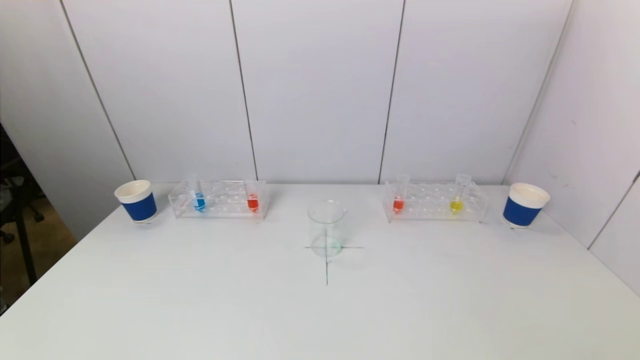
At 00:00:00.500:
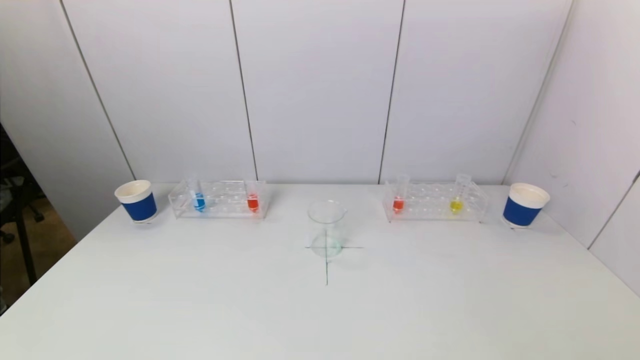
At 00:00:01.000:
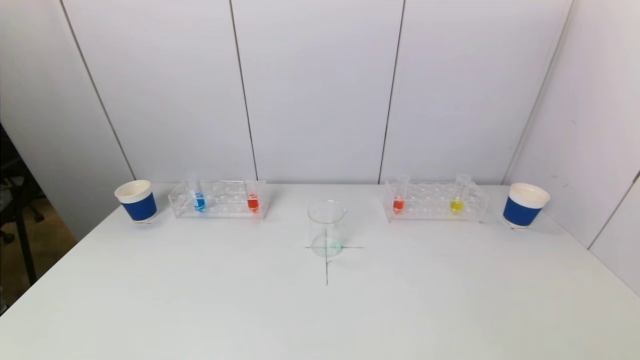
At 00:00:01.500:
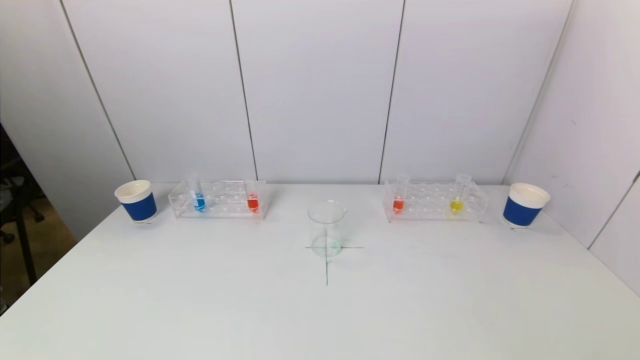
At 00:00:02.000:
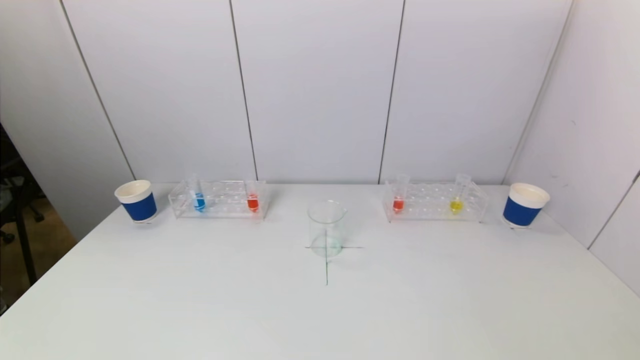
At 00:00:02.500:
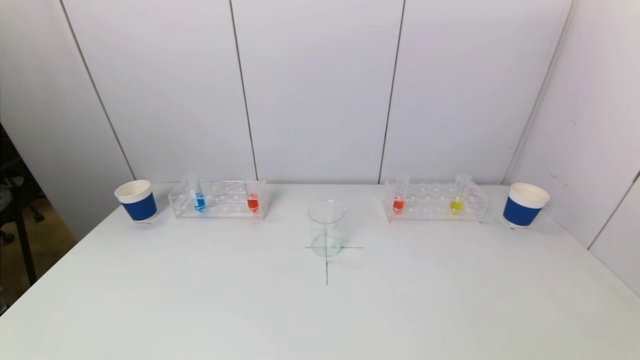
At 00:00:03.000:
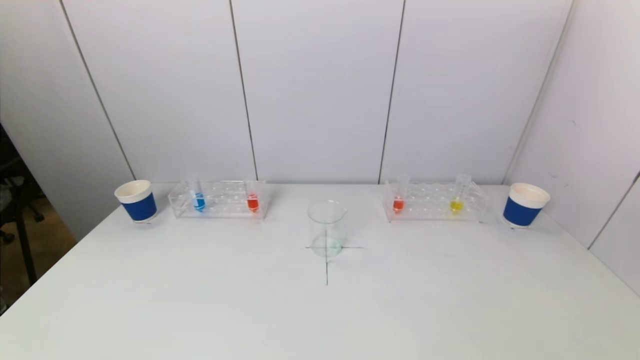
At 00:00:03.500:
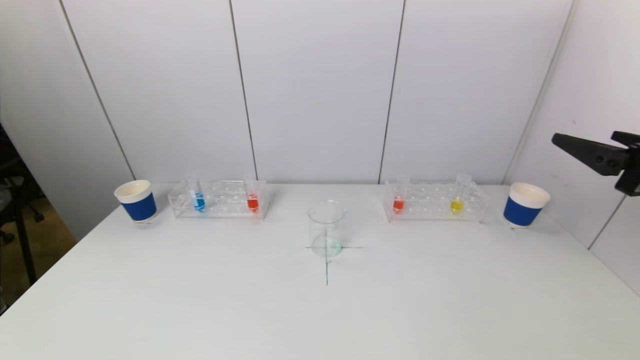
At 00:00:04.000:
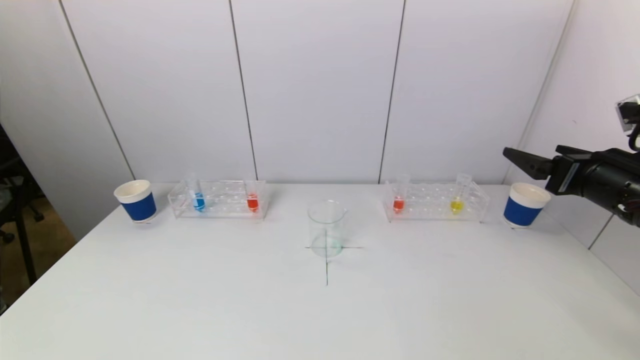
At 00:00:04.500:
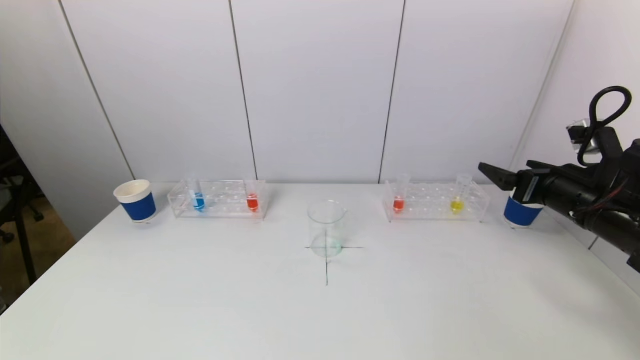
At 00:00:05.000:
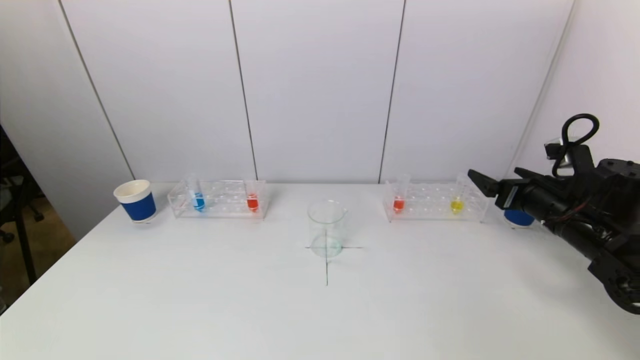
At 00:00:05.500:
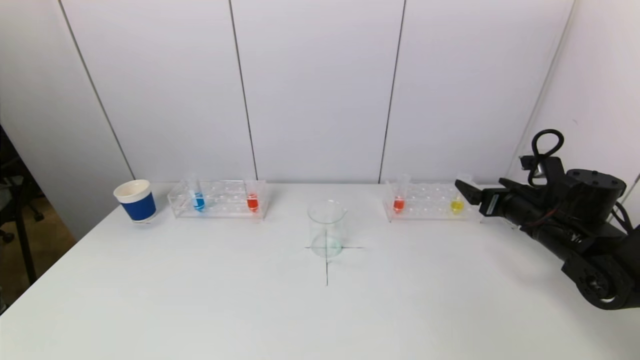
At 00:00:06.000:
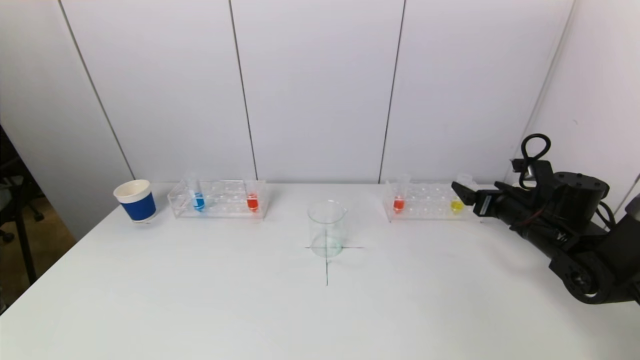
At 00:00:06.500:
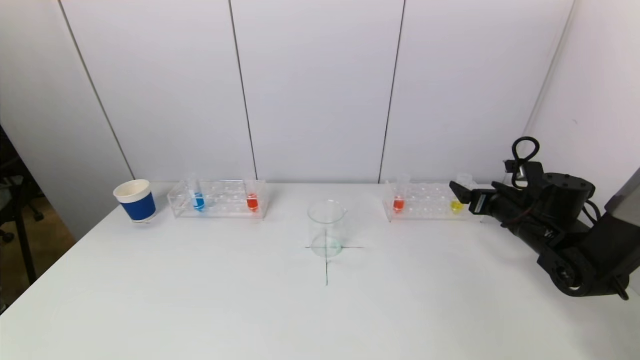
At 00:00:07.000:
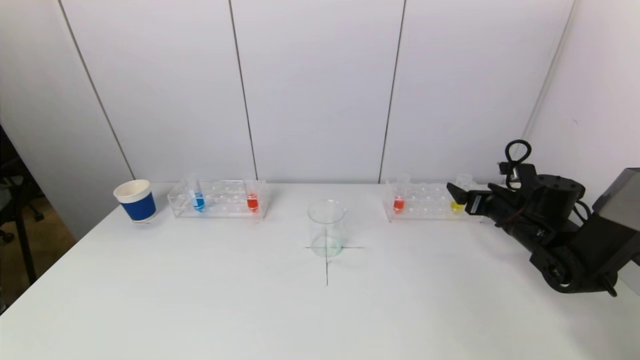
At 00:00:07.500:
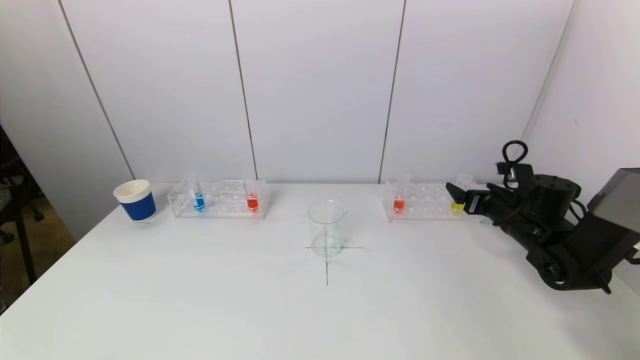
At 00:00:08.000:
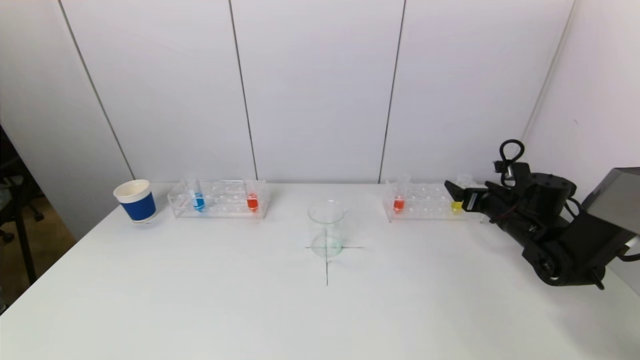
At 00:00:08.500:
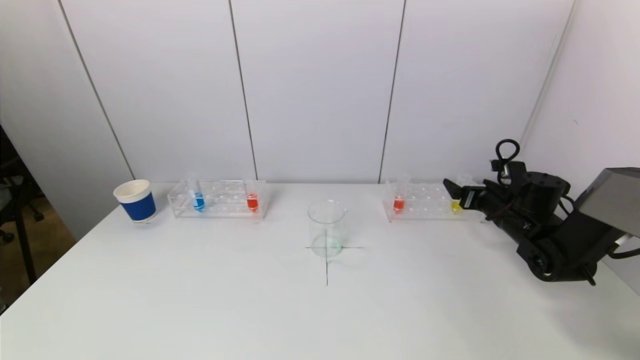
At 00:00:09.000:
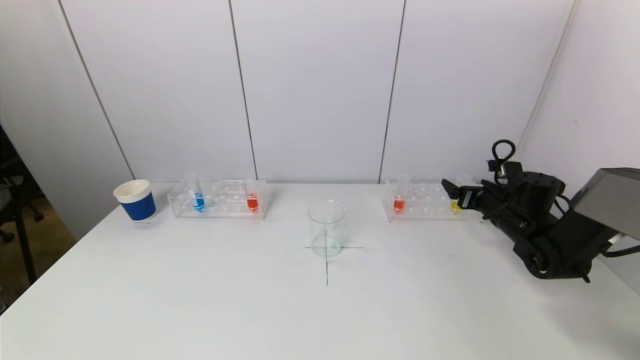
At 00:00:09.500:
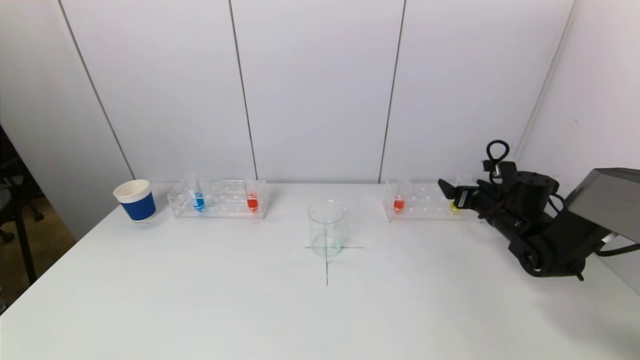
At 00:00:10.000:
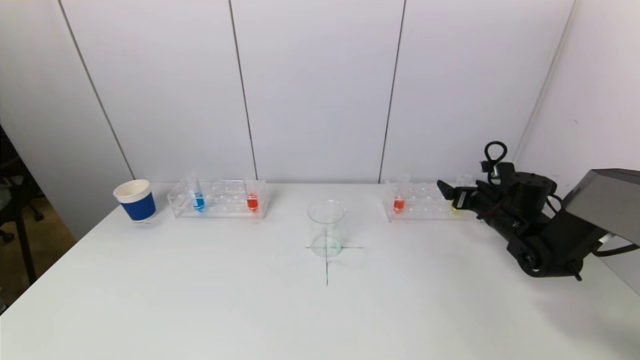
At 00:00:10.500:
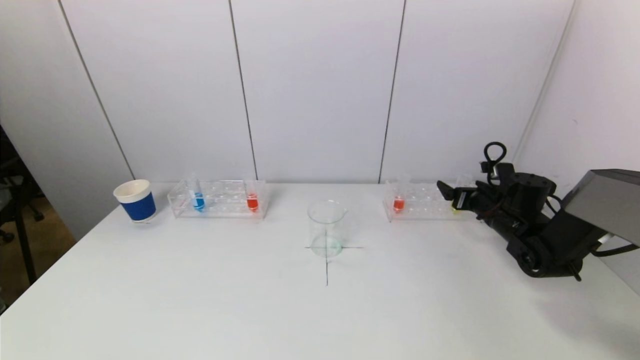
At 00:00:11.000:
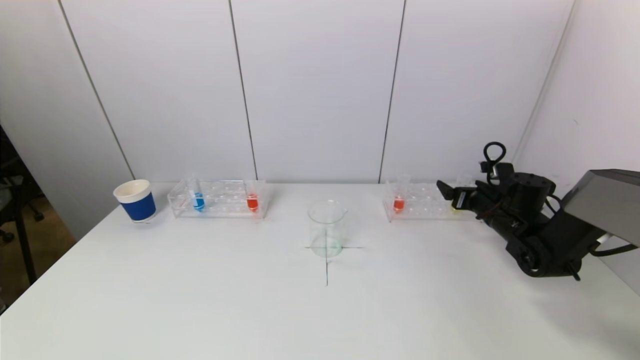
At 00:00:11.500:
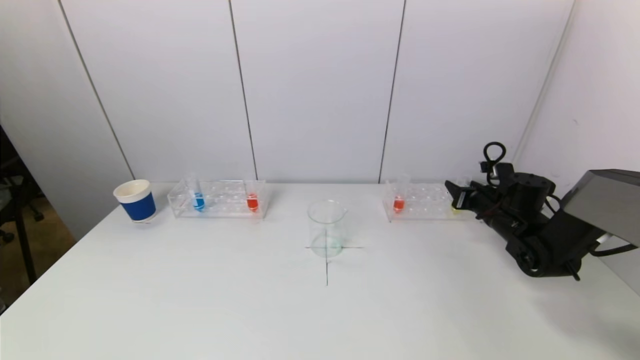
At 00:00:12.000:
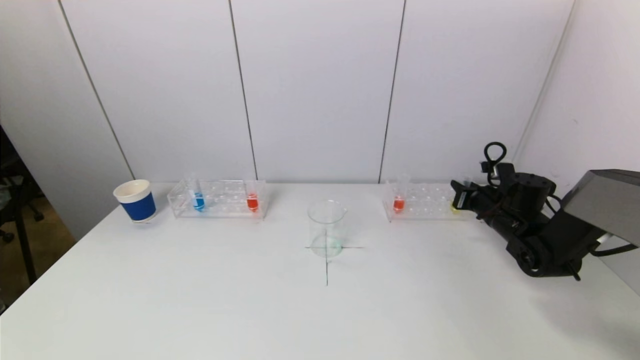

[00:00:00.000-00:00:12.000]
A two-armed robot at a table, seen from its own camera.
Task of the whole recording: pick up a test tube with pigment on left test tube rack and a test tube with pigment on right test tube rack by grippers and pour them into the beaker.
Step, 00:00:00.000 to 00:00:11.500: Grasp the yellow reagent with the right gripper.
00:00:02.000 to 00:00:04.000: The right gripper is displaced forward by about 30 cm.
00:00:04.000 to 00:00:06.000: The right gripper is displaced downward and forward by about 15 cm.
00:00:06.000 to 00:00:08.000: The right gripper changes place by about 5 cm.
00:00:08.000 to 00:00:10.000: There are only small adjustments of the grippers.

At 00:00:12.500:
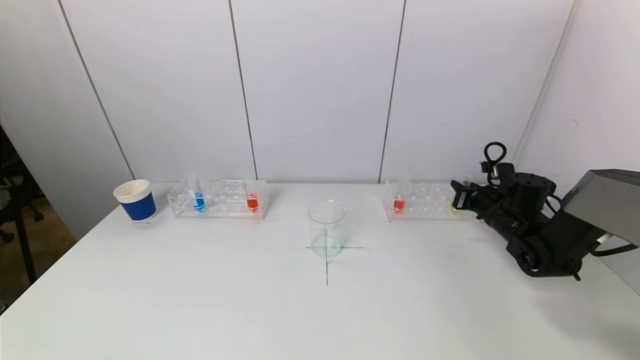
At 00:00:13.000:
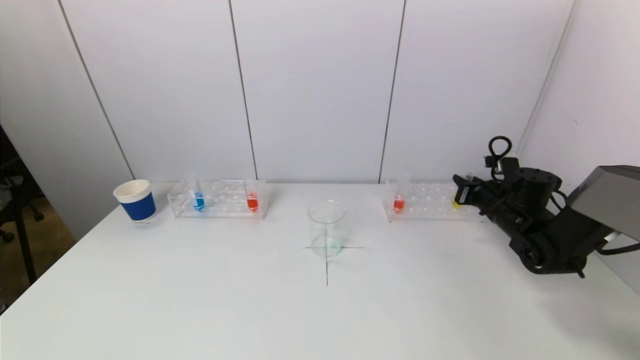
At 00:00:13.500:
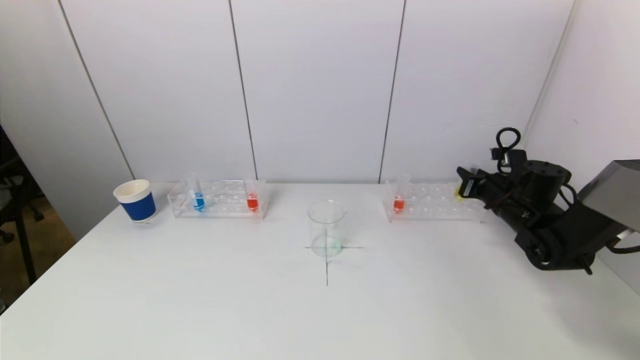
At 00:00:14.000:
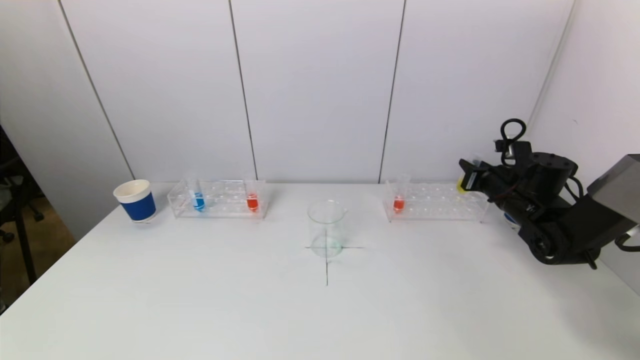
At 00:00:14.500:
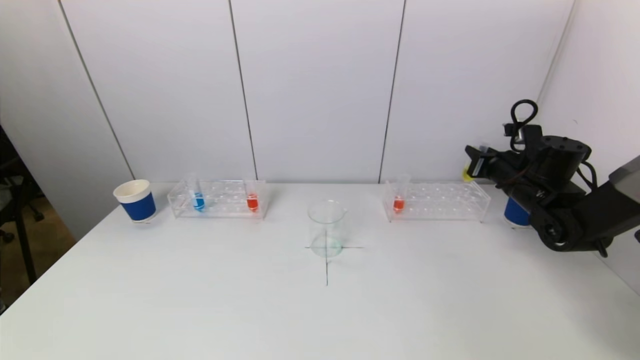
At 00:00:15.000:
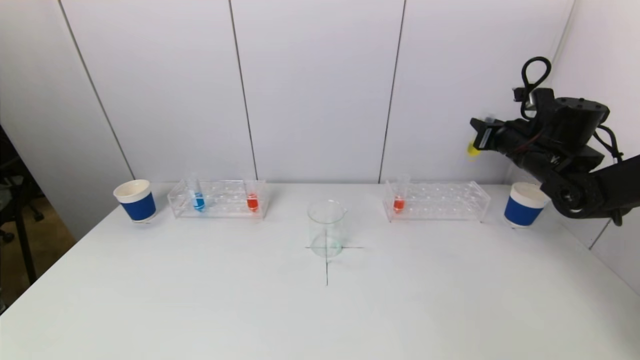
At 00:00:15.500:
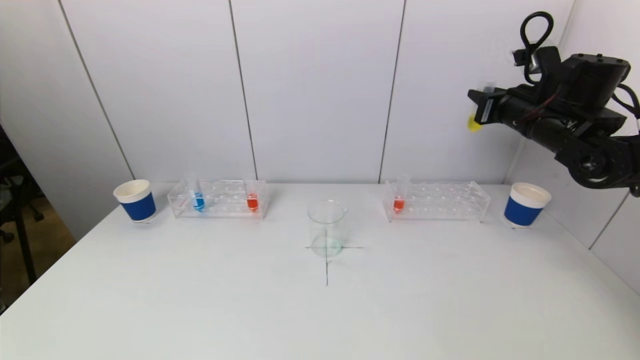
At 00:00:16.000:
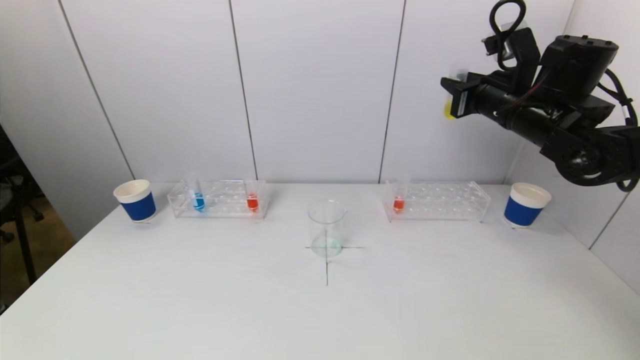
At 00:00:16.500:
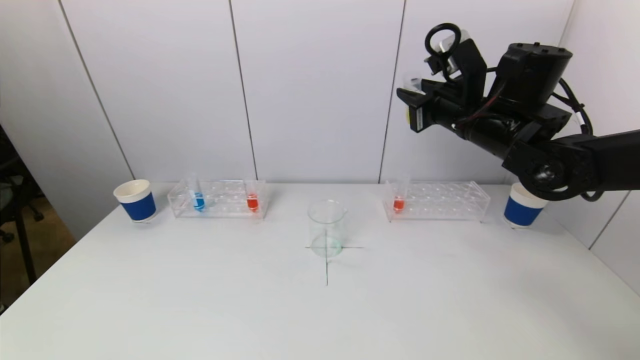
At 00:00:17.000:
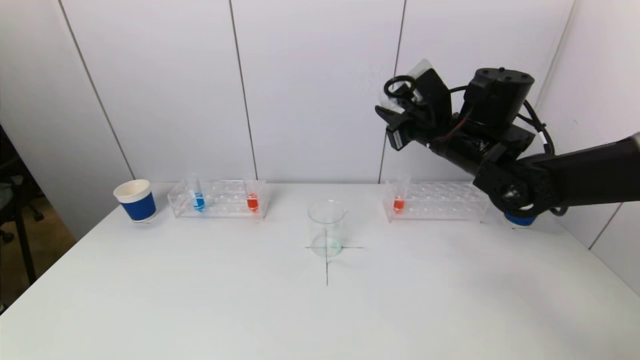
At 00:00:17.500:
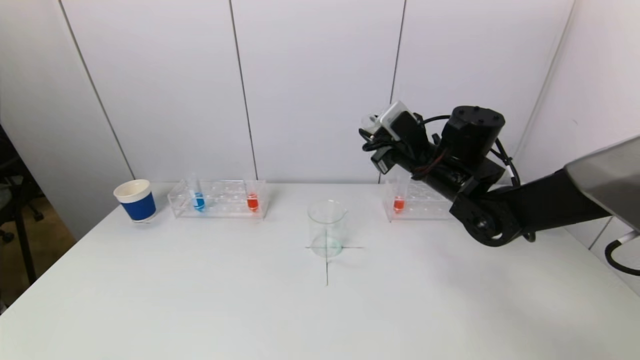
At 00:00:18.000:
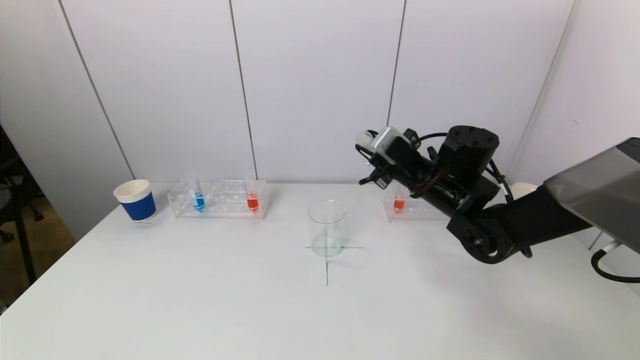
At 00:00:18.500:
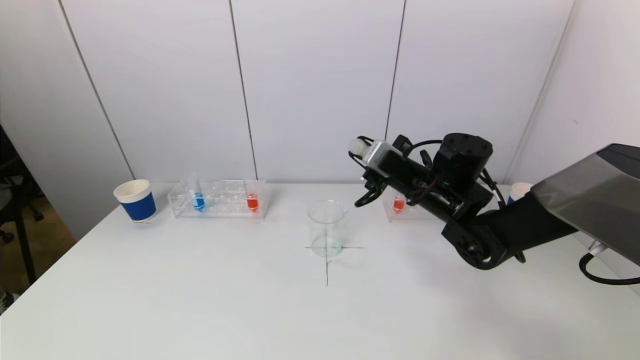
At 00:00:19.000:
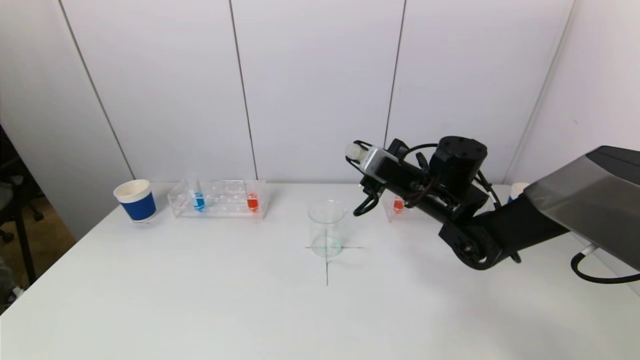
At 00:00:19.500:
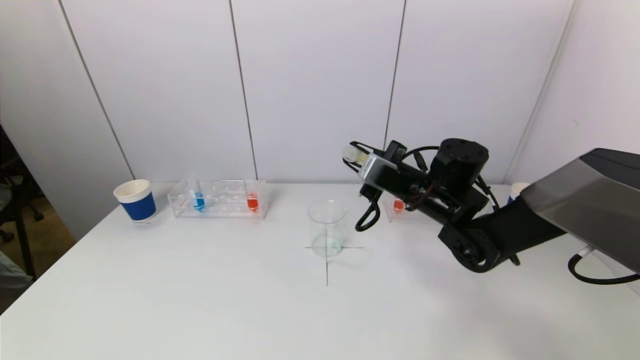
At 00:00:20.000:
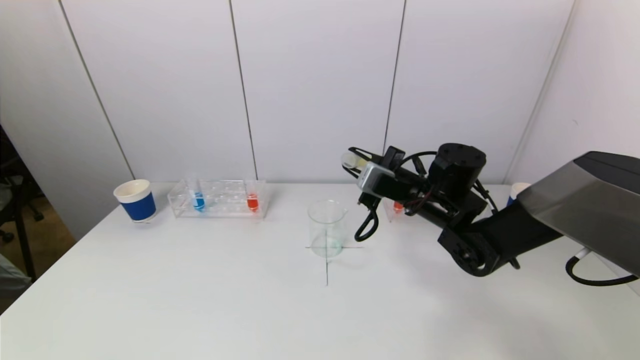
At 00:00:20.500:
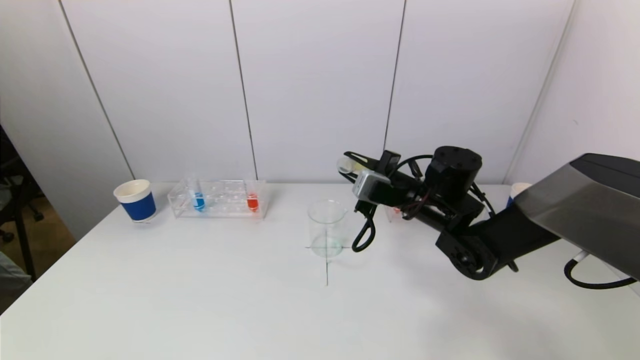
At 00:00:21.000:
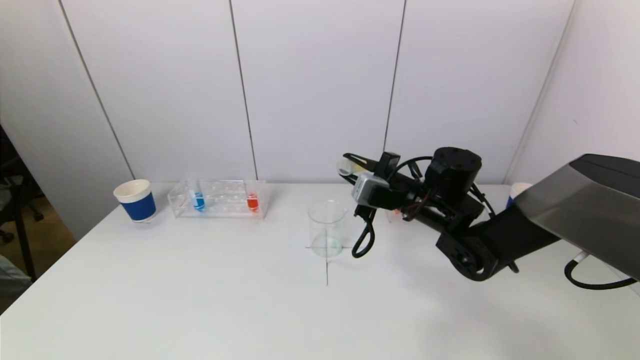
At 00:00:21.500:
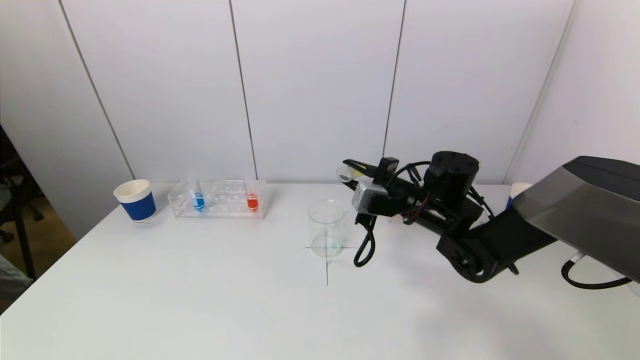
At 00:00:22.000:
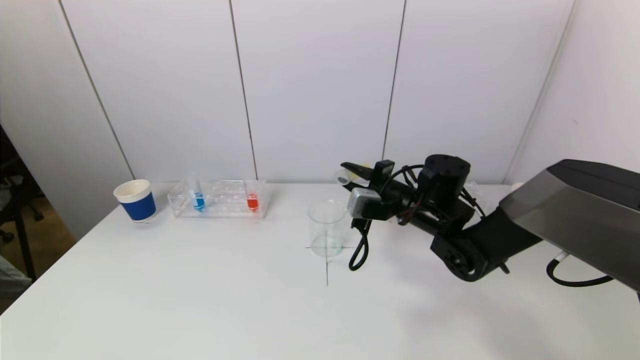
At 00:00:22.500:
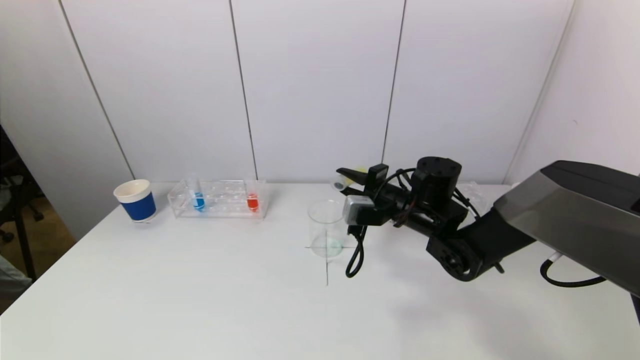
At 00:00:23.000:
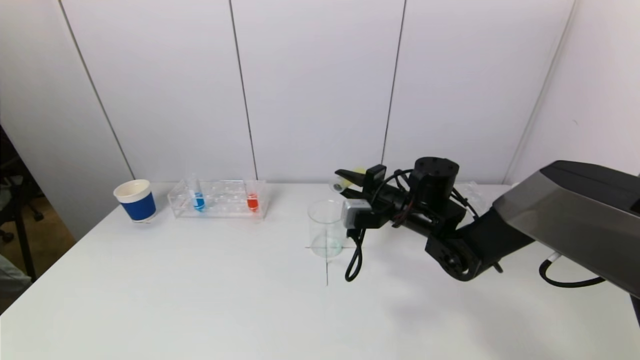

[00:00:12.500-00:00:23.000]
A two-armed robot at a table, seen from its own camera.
Task of the whole recording: pick up a test tube with pigment on left test tube rack and a test tube with pigment on right test tube rack by grippers and pour them into the beaker.
00:00:12.500 to 00:00:14.500: The right gripper goes approximately 10 cm upward.
00:00:14.500 to 00:00:16.500: The right gripper moves to the left and upward, approximately 20 cm.
00:00:16.500 to 00:00:19.000: The right gripper moves downward, approximately 10 cm.
00:00:19.000 to 00:00:21.000: The grippers stay close to where they were, moving slightly.
00:00:21.000 to 00:00:23.000: The grippers stay close to where they were, moving slightly.
